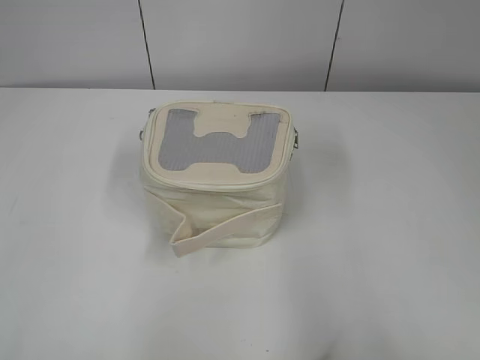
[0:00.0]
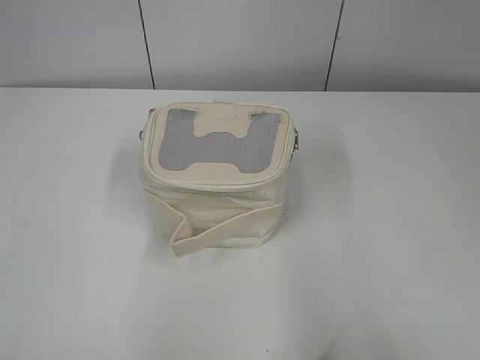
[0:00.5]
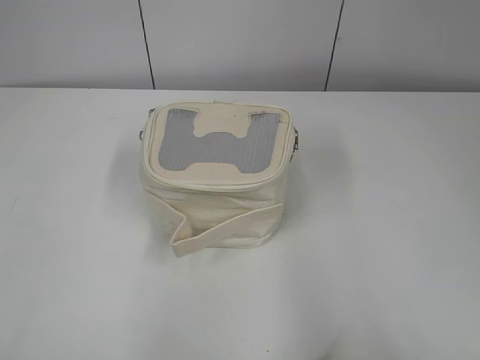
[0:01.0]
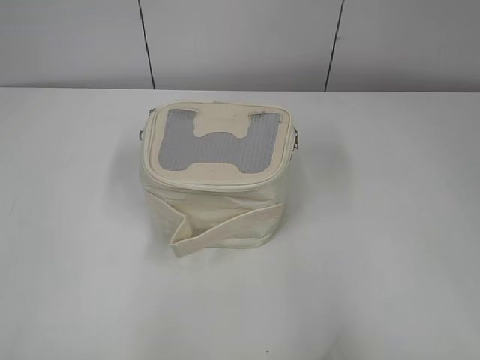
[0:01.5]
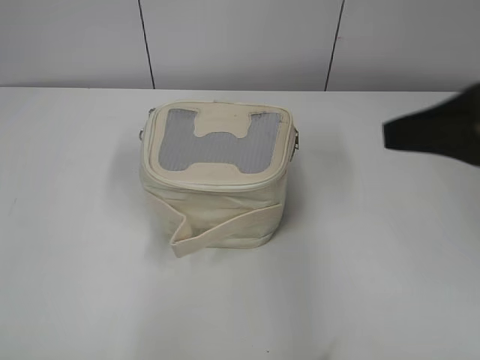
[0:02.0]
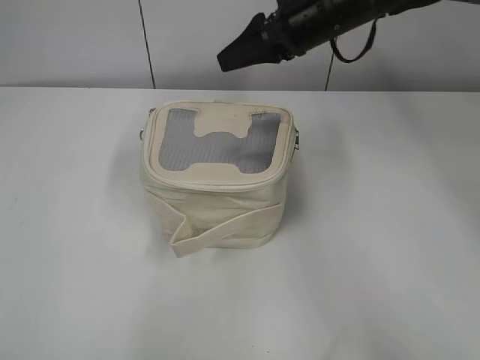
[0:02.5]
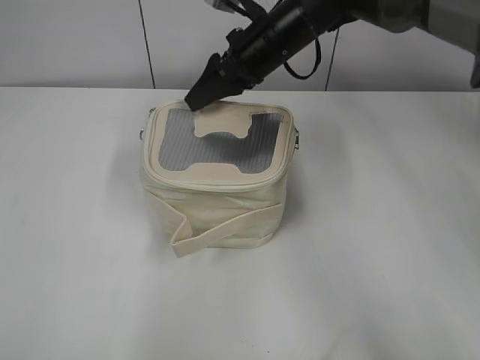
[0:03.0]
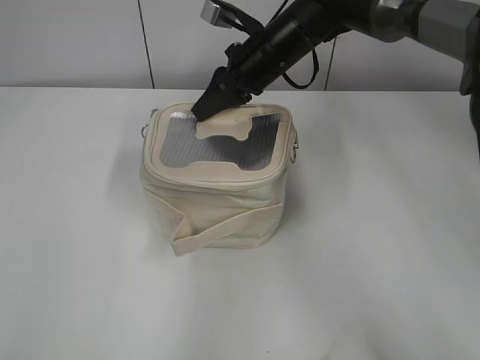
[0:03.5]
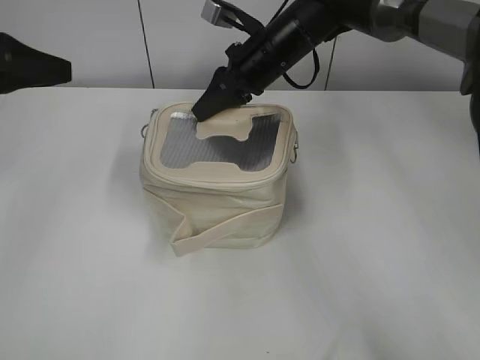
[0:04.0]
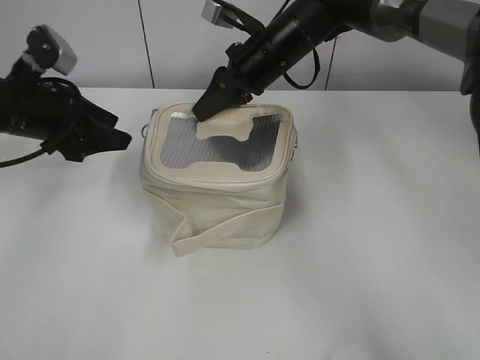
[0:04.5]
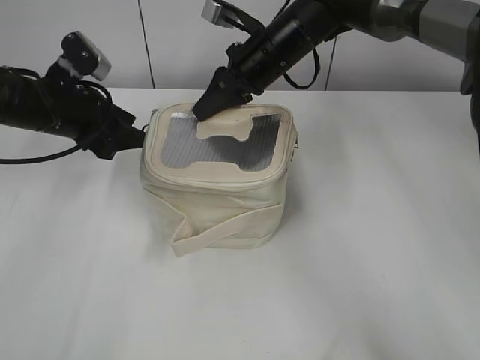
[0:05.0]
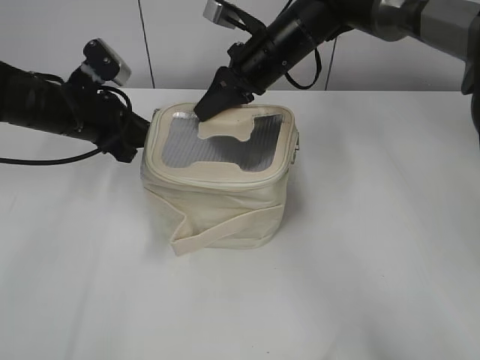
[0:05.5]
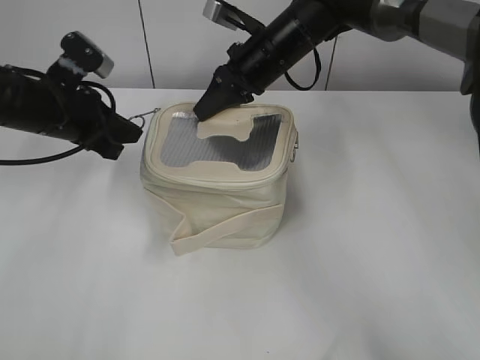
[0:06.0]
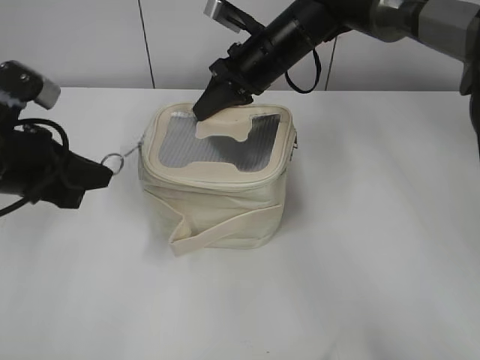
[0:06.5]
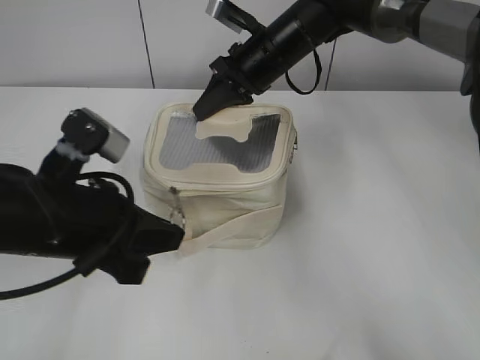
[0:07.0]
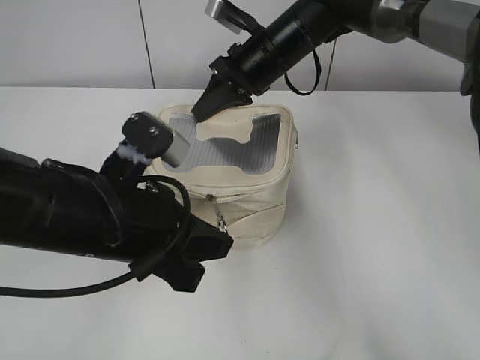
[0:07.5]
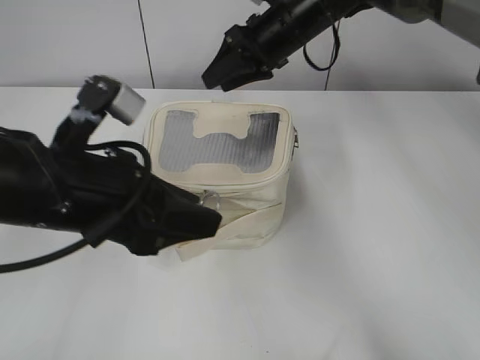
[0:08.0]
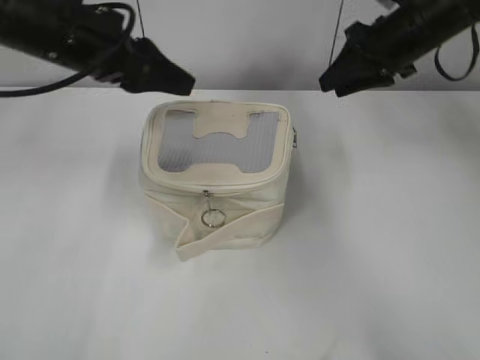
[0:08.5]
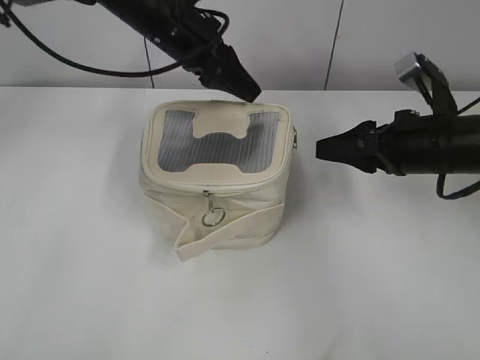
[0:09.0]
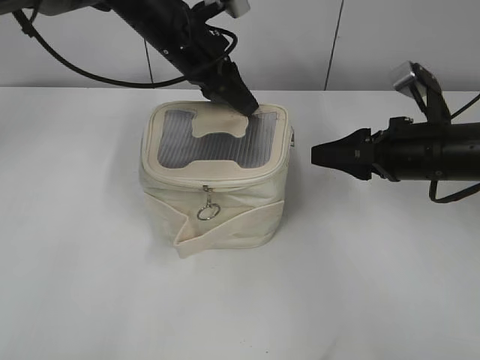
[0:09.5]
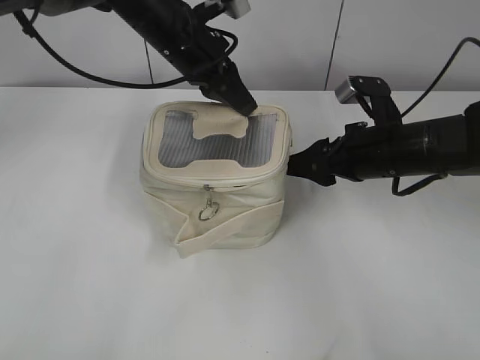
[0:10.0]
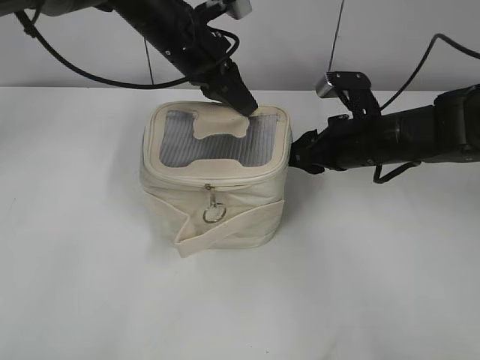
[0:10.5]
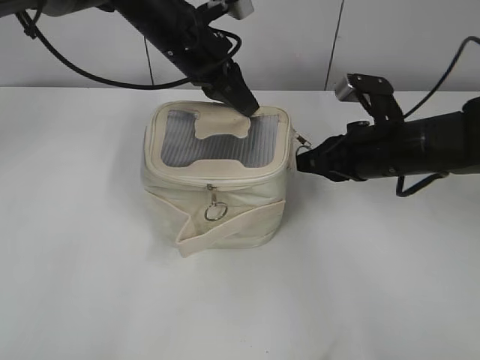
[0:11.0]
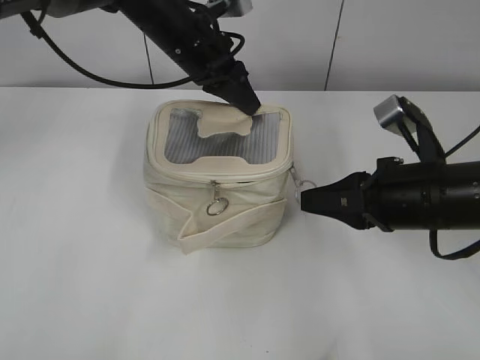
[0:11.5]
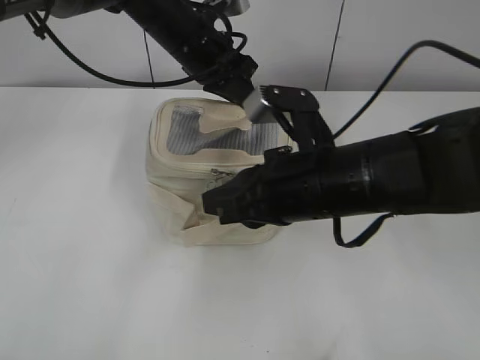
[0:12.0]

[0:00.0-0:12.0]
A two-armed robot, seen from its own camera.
Step, 0:00.0 to 0:08.0: Hold the bag with your right hand.
0:02.0 to 0:04.0: The left gripper shifts some 30 cm forward. Meanwhile the right gripper goes some 35 cm forward and to the left, and closes up.
0:04.0 to 0:06.0: The left gripper moves downward, to the right and forward, some 15 cm, and closes up.
0:06.0 to 0:08.0: The left gripper moves backward and to the right, approximately 20 cm, and opens up, while the right gripper opens its fingers.
0:08.0 to 0:10.0: The left gripper goes some 25 cm forward, and closes. Meanwhile the right gripper is displaced backward, to the right and downward by about 20 cm.
0:10.0 to 0:12.0: The right gripper shifts approximately 15 cm backward and to the left, and closes its fingers.

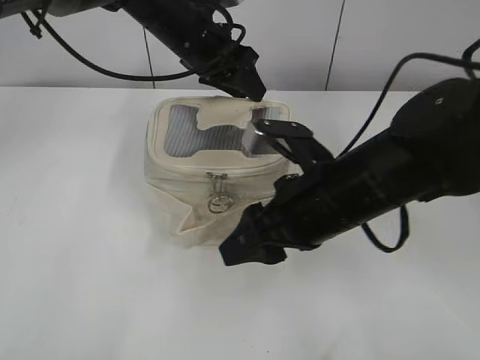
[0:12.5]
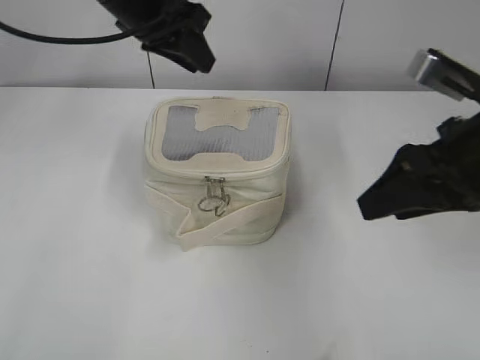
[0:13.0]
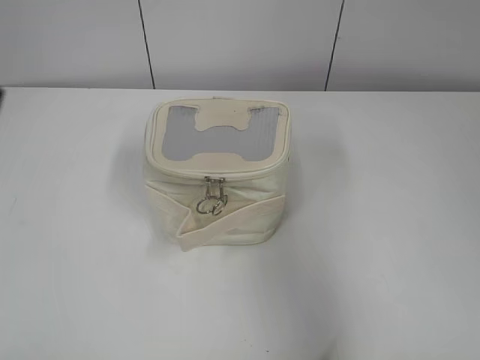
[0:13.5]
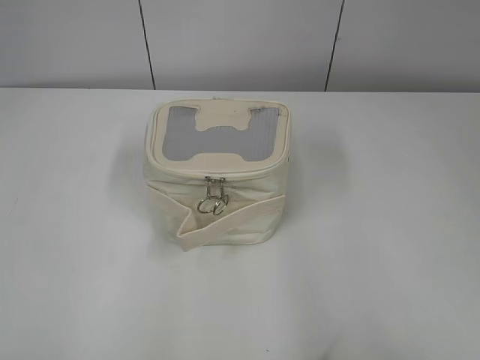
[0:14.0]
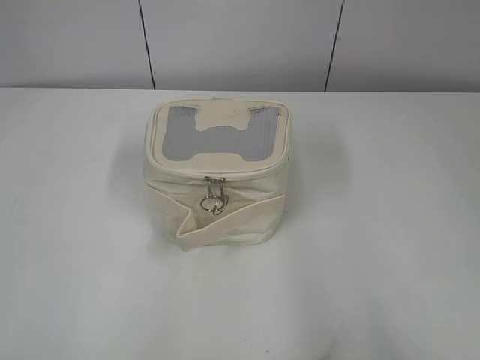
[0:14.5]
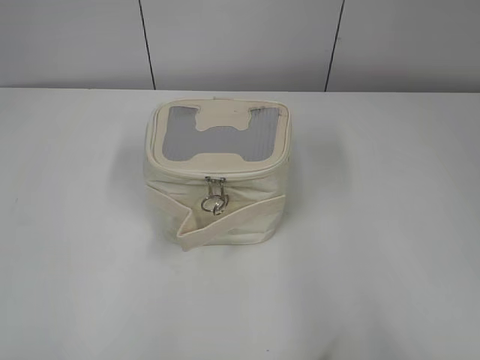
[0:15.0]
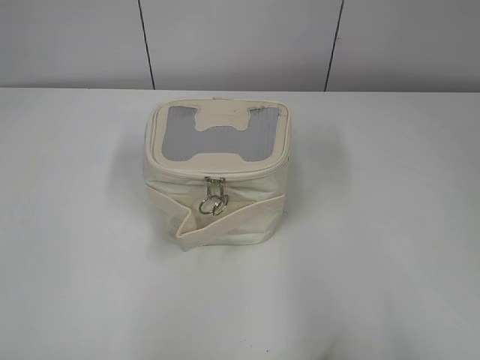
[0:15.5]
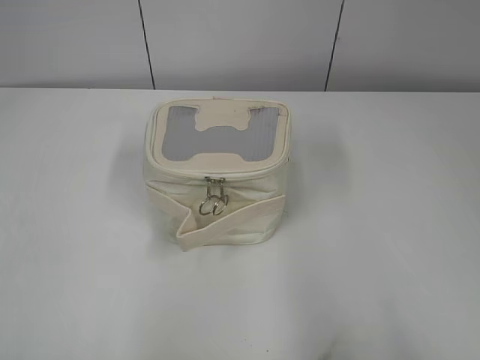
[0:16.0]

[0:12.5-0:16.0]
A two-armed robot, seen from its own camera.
0:12.5 to 0:14.5: The right gripper shifts roughly 35 cm backward, to the right and upward; the left gripper goes approximately 50 cm backward and to the left.

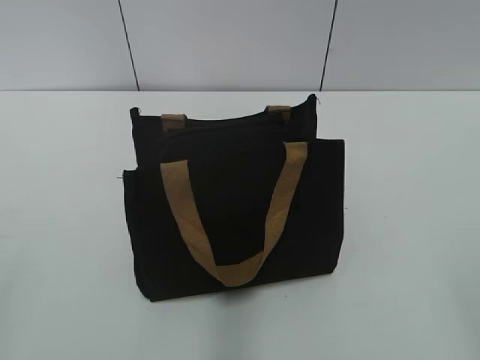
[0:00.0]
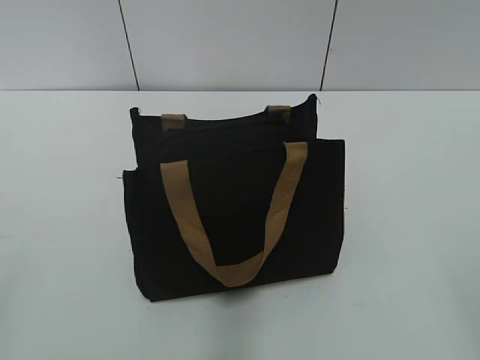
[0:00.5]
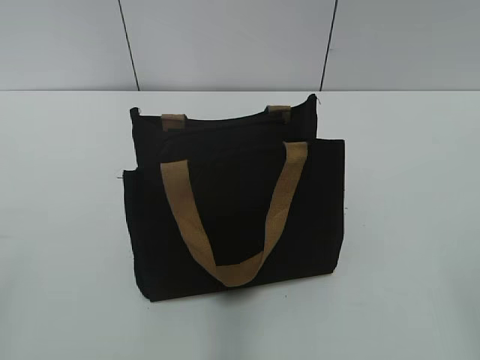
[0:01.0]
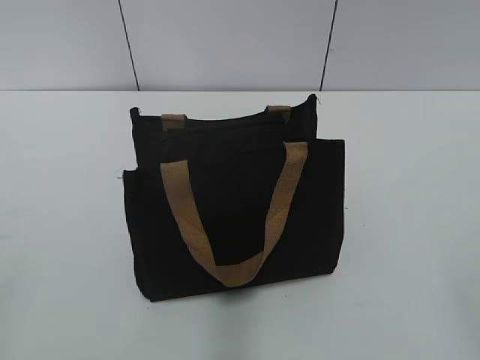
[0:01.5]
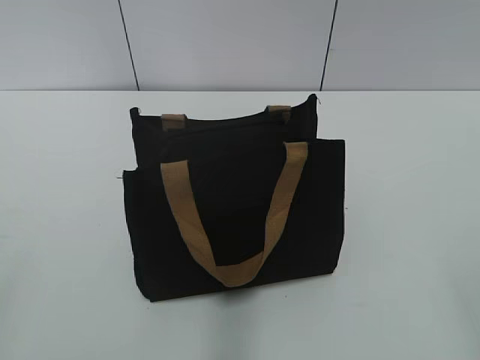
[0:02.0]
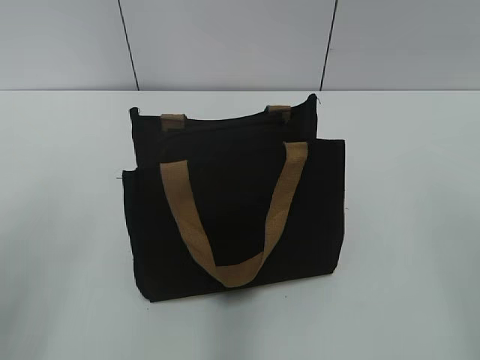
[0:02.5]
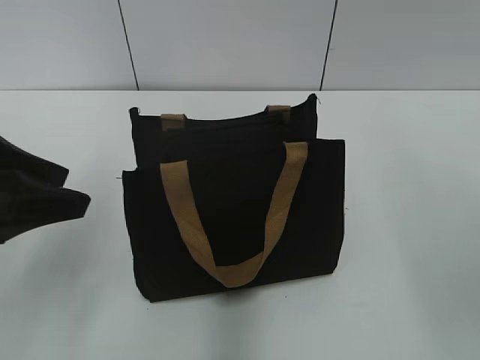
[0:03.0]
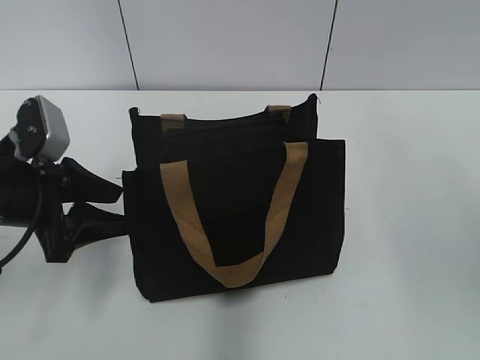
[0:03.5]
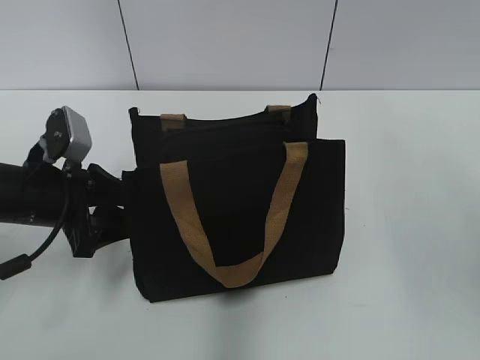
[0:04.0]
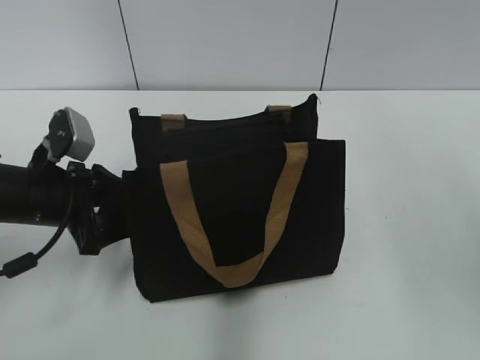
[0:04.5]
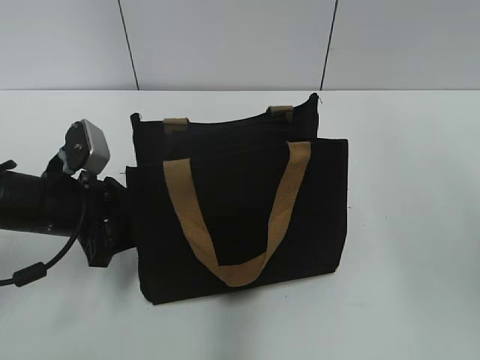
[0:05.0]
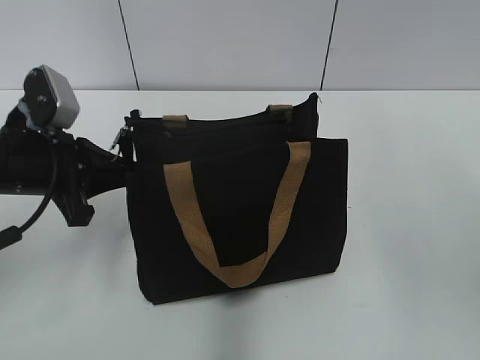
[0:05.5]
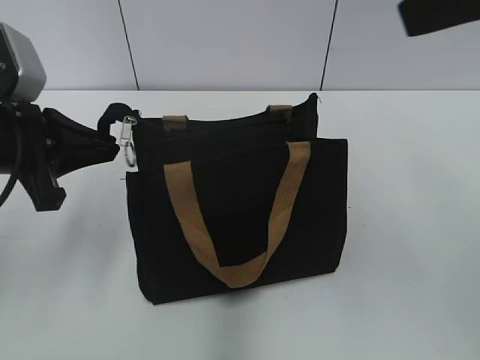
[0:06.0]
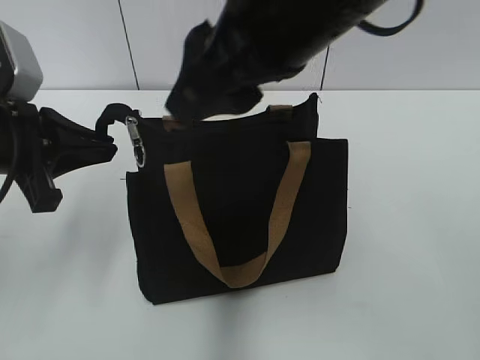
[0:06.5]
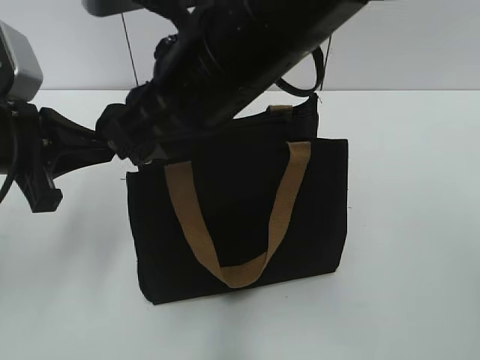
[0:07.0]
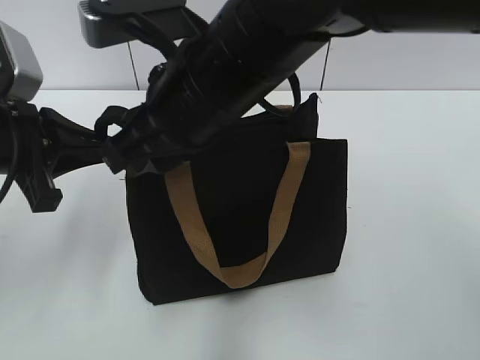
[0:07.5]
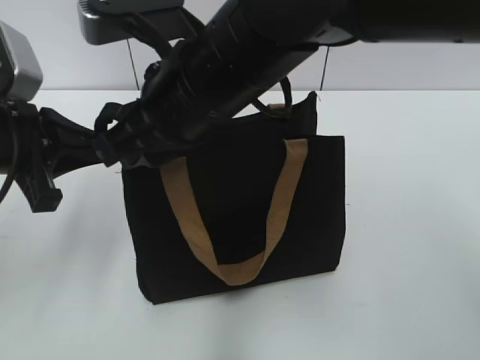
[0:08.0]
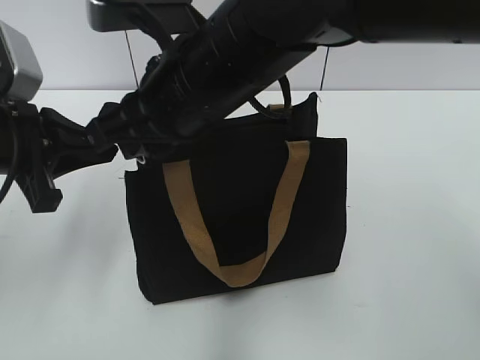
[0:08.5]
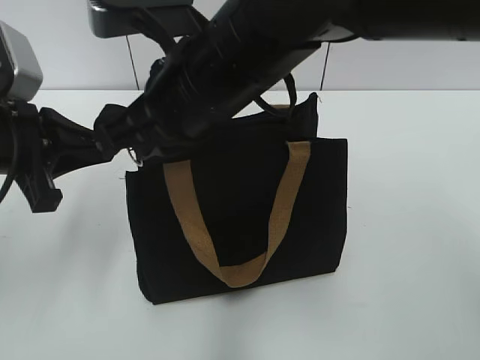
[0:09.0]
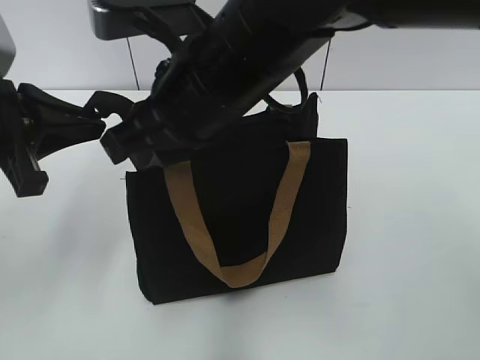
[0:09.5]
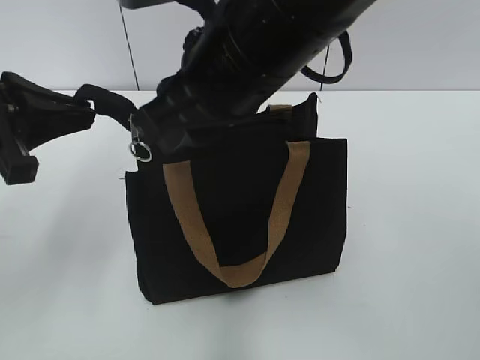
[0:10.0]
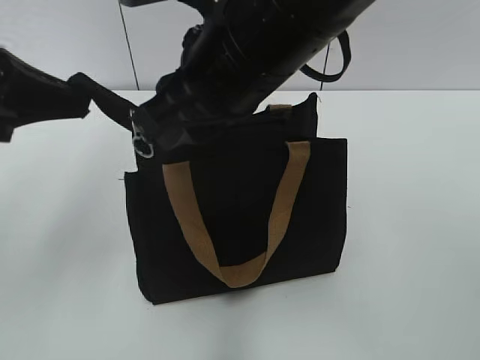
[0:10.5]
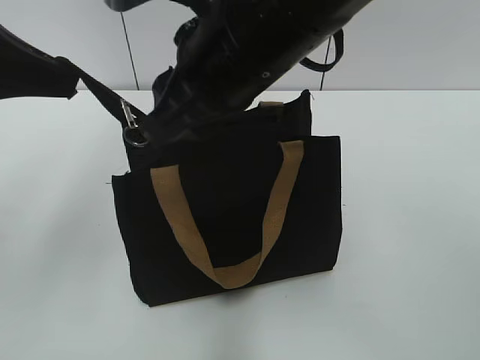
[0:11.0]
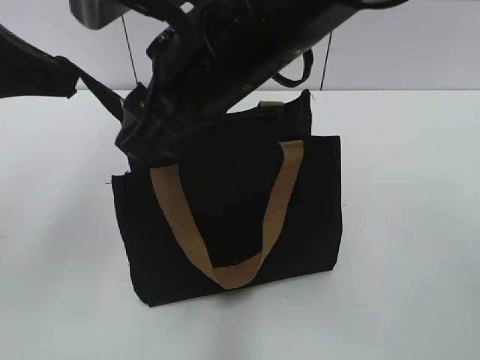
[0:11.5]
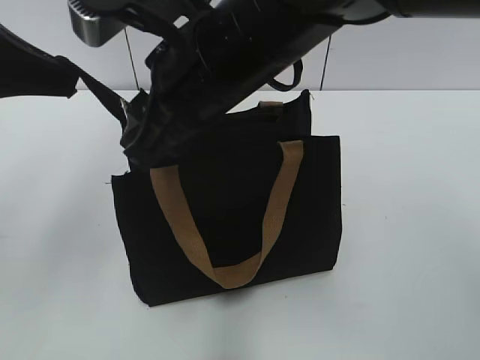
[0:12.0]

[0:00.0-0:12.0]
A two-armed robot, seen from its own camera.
0:02.0 to 0:04.0: The left gripper moves forward and downward, about 30 cm.
0:04.0 to 0:06.0: The right gripper moves to the left, some 5 cm. The left gripper shifts approximately 10 cm upward, and closes up.
0:06.0 to 0:08.0: The right gripper goes some 25 cm to the left and downward.
0:08.0 to 0:10.0: The right gripper closes and opens again.
0:10.0 to 0:12.0: The left gripper is displaced upward by about 5 cm.
